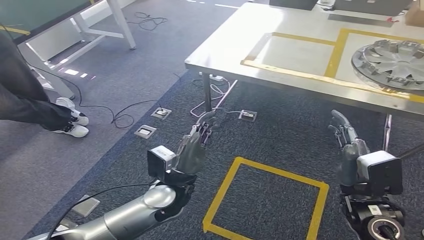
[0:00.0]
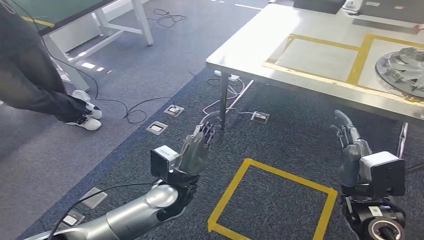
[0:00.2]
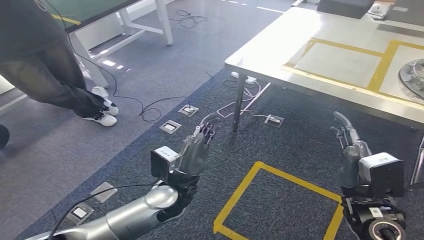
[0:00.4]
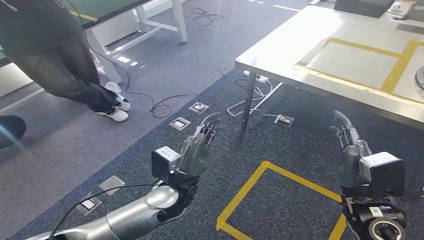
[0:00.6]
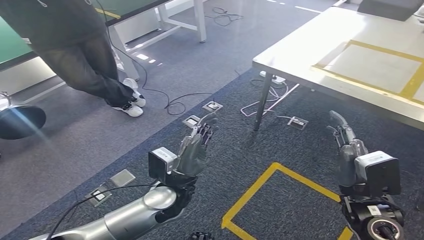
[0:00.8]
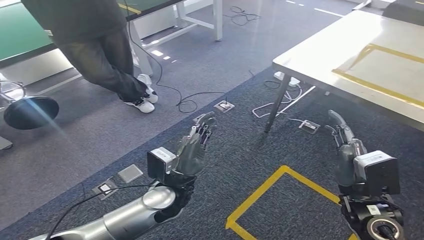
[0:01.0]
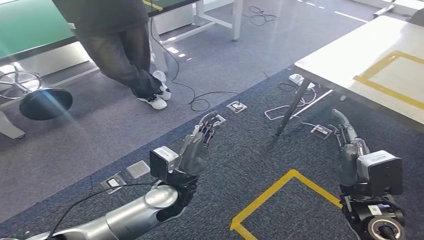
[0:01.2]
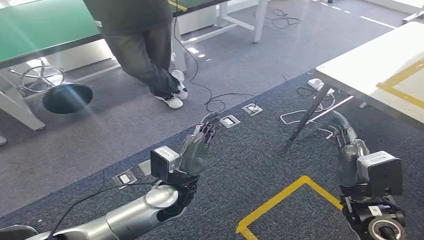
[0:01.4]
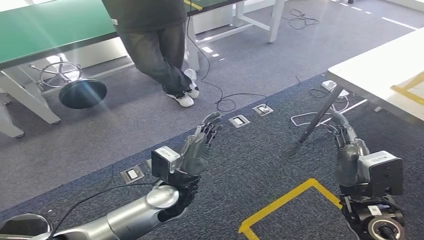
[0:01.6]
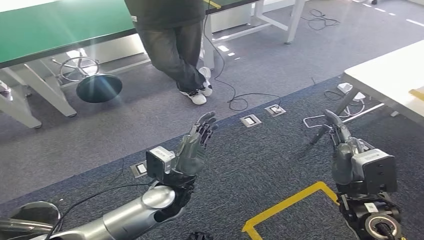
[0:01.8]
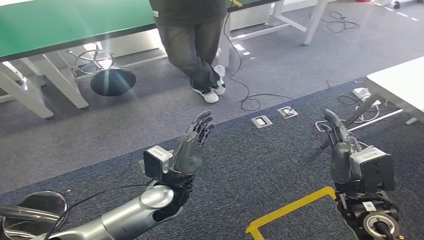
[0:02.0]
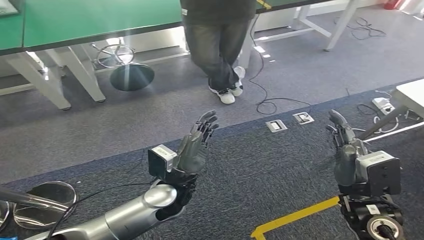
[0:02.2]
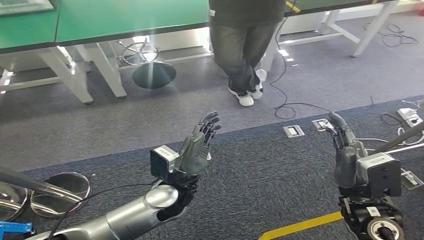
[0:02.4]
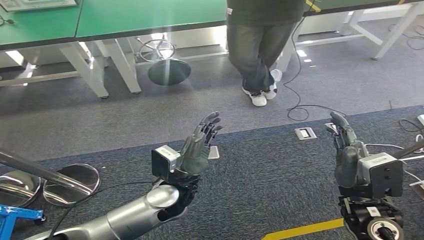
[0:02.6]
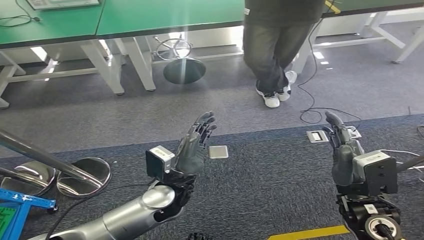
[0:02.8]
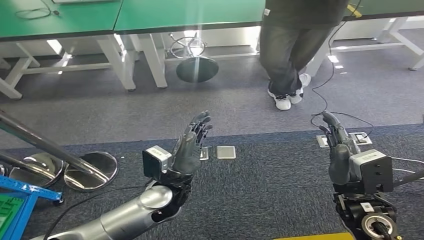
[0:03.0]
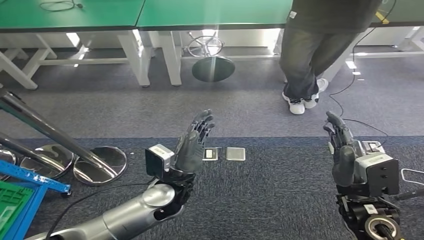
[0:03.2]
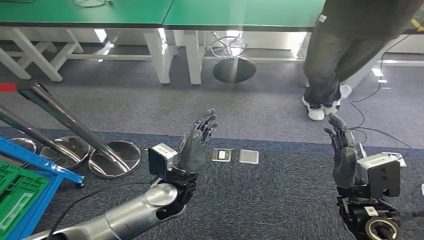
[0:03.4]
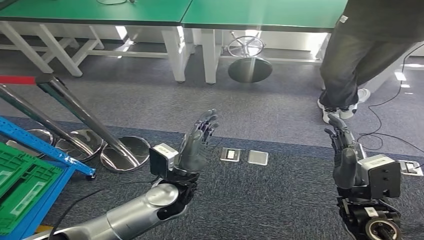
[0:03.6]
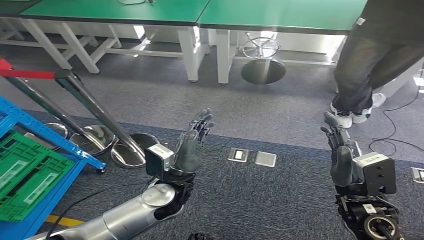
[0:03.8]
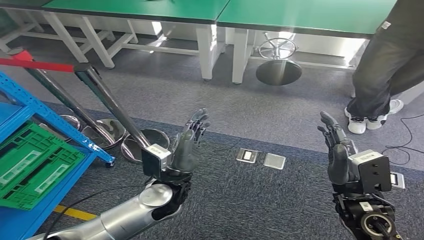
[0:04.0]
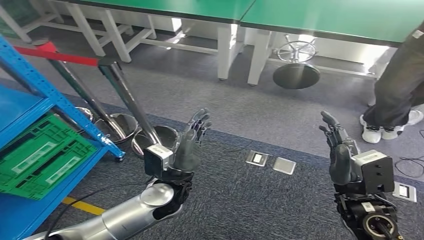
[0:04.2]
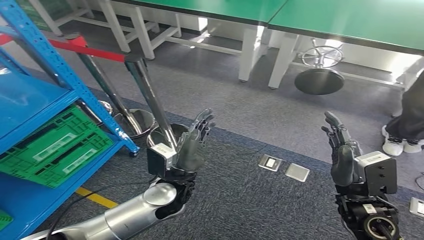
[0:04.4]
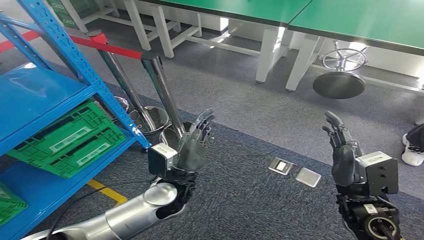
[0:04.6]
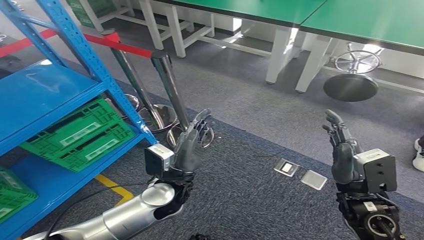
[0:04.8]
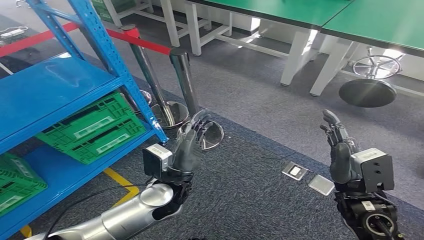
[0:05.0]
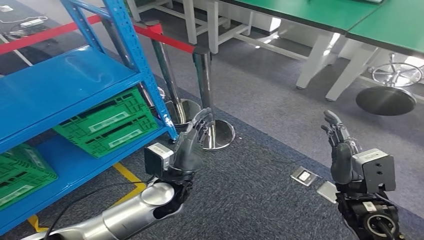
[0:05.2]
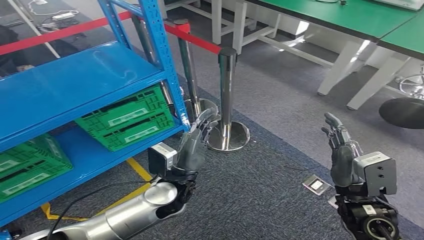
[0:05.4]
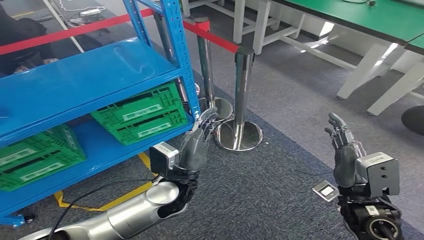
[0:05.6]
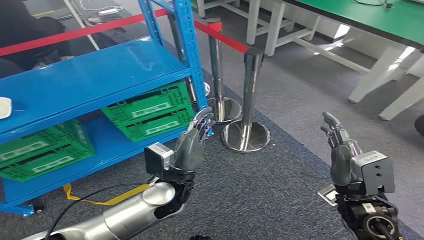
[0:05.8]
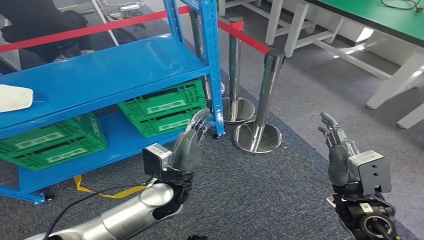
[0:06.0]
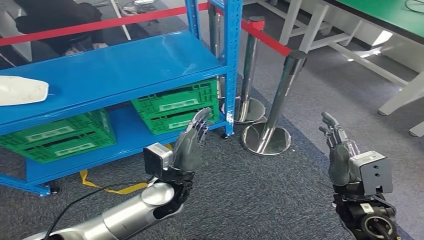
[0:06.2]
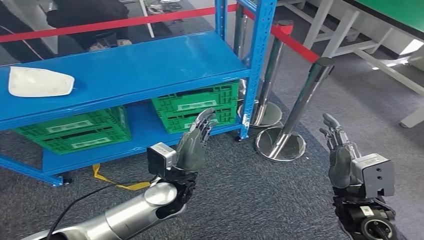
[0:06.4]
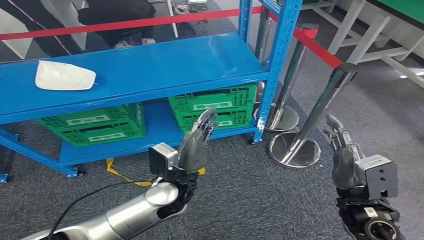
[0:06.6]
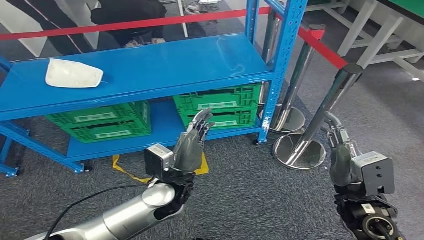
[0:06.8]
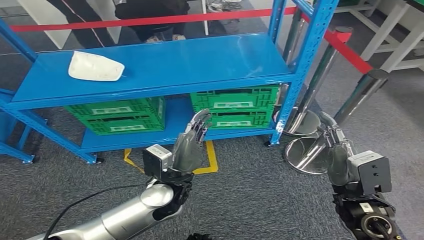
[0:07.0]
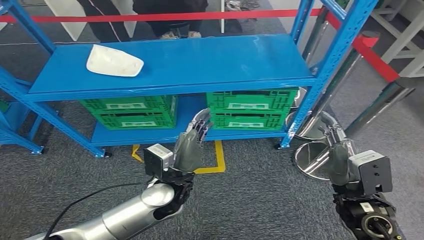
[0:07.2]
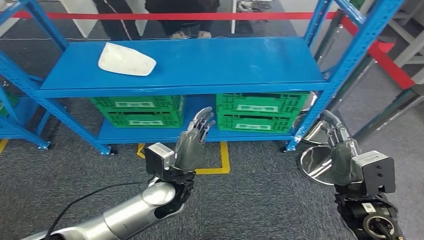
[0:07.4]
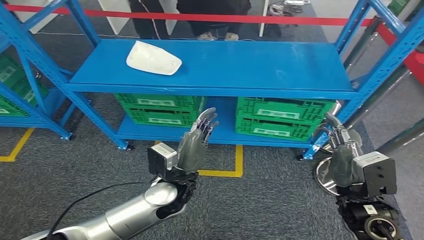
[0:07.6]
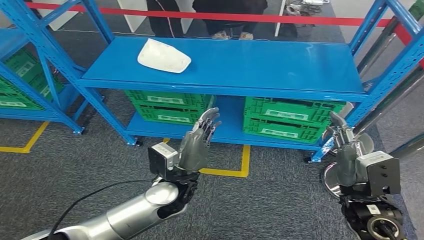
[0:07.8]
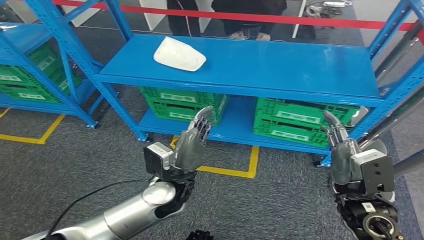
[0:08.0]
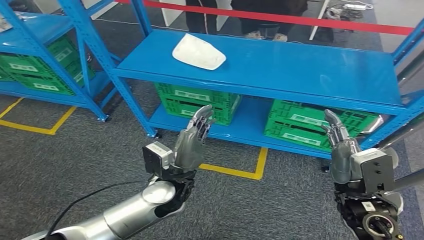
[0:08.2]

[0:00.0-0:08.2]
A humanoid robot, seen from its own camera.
Step, 0:00.0 to 0:08.2: Return to the initial position at the workbench.
